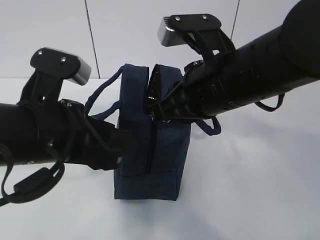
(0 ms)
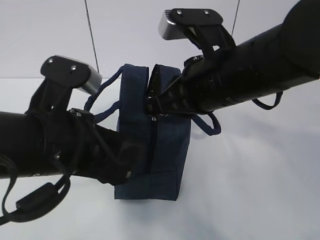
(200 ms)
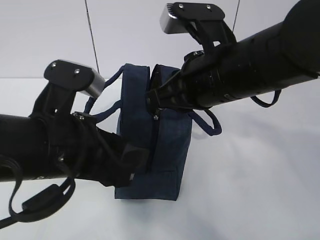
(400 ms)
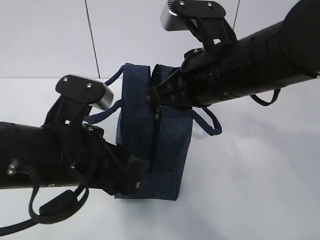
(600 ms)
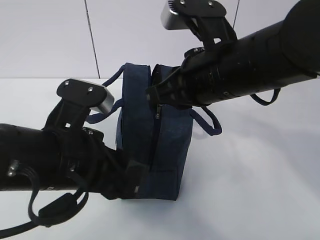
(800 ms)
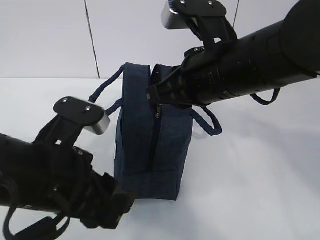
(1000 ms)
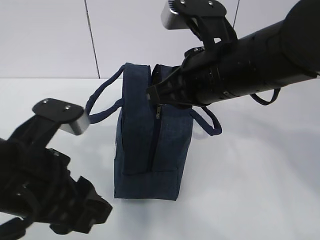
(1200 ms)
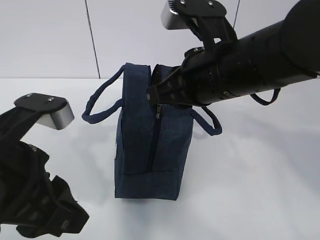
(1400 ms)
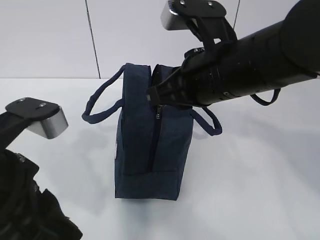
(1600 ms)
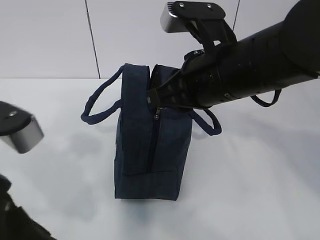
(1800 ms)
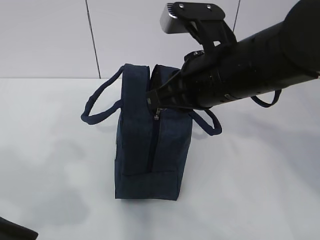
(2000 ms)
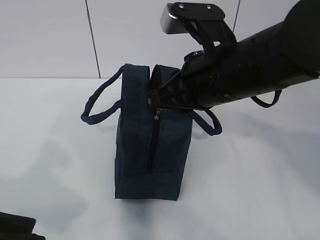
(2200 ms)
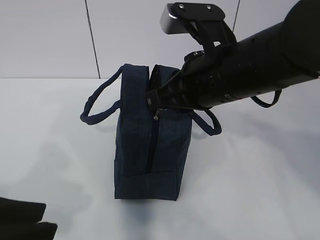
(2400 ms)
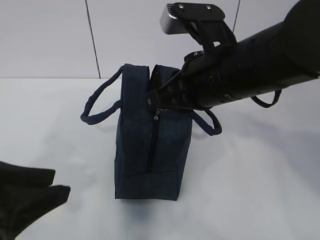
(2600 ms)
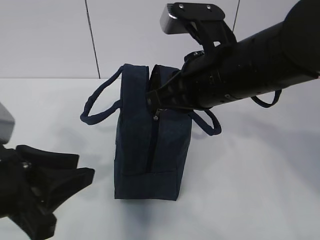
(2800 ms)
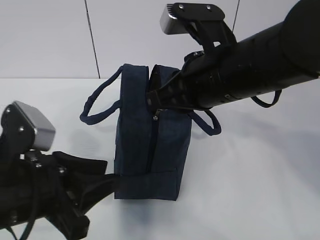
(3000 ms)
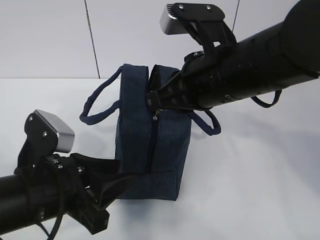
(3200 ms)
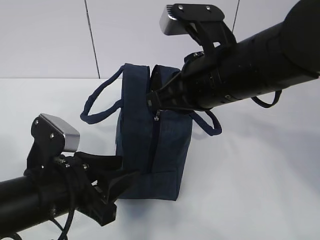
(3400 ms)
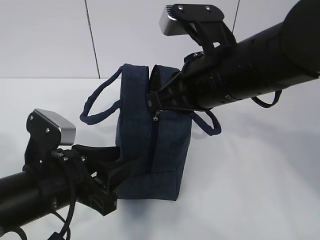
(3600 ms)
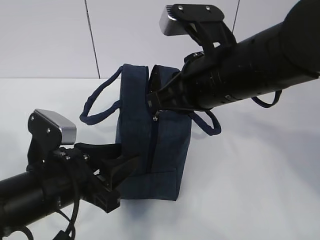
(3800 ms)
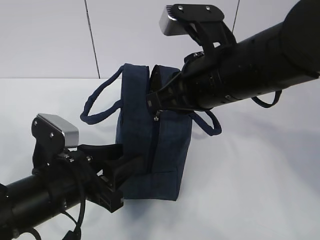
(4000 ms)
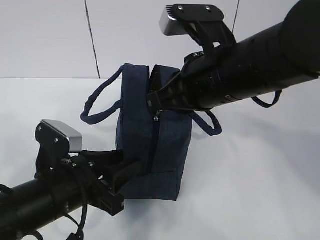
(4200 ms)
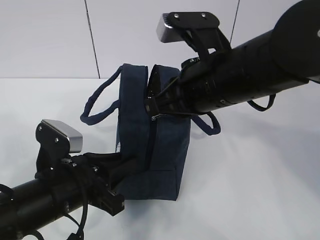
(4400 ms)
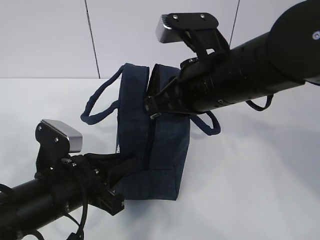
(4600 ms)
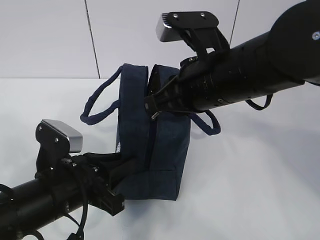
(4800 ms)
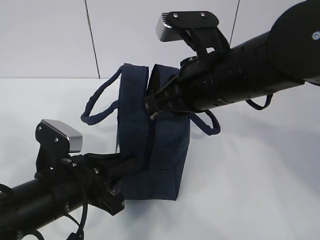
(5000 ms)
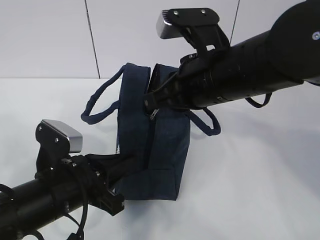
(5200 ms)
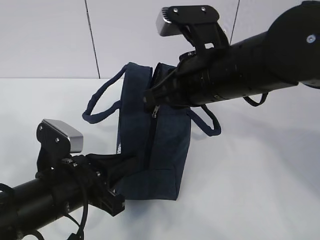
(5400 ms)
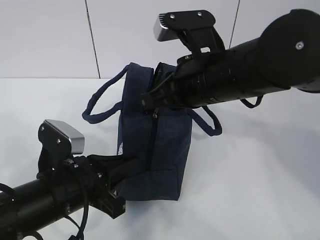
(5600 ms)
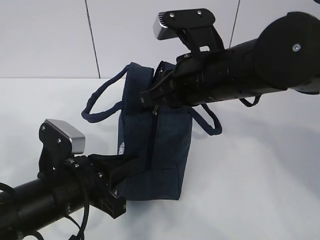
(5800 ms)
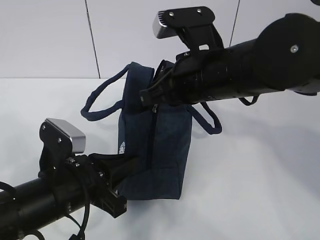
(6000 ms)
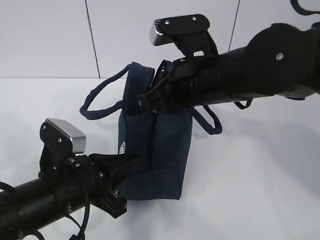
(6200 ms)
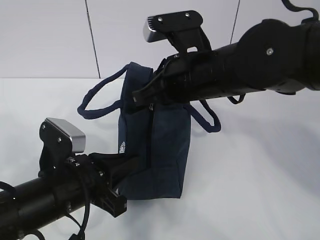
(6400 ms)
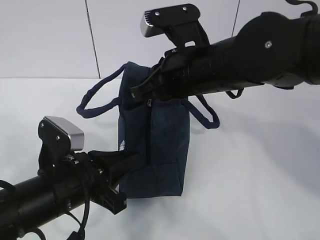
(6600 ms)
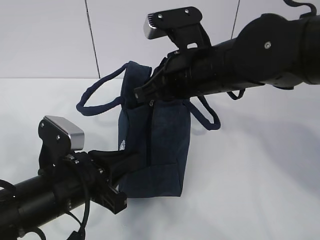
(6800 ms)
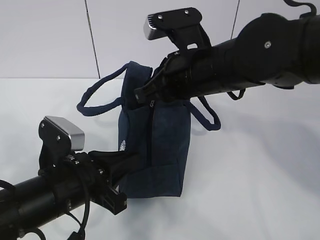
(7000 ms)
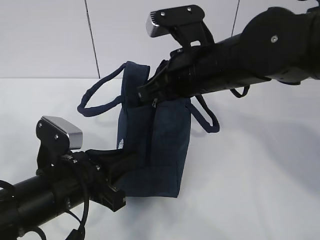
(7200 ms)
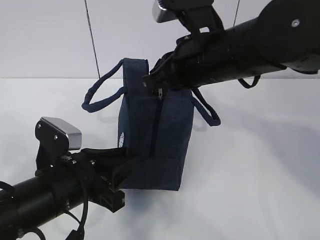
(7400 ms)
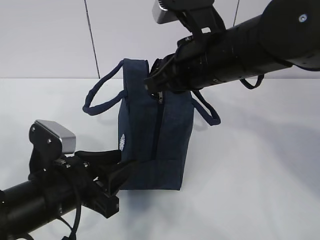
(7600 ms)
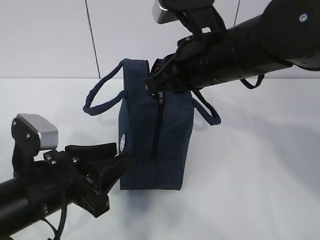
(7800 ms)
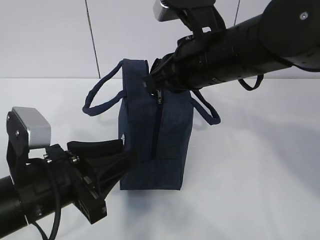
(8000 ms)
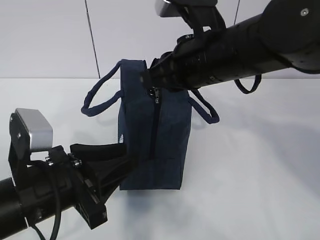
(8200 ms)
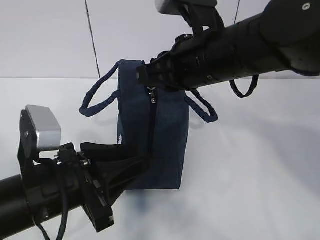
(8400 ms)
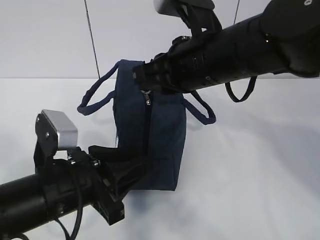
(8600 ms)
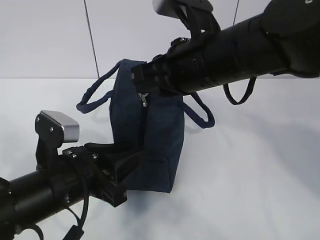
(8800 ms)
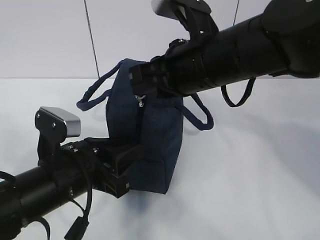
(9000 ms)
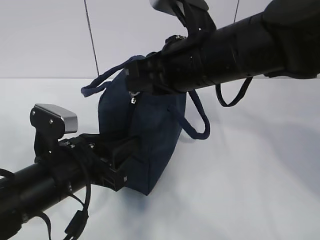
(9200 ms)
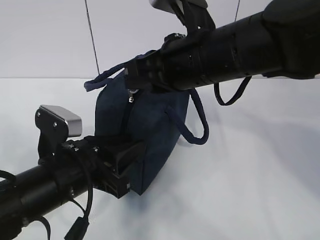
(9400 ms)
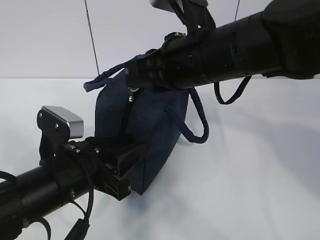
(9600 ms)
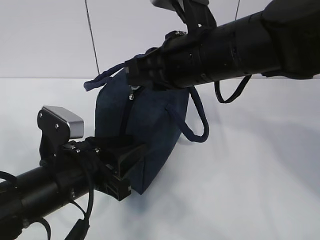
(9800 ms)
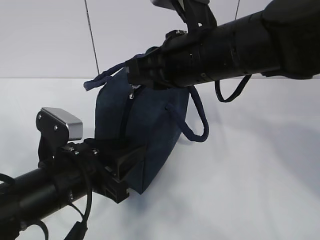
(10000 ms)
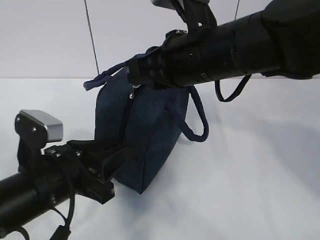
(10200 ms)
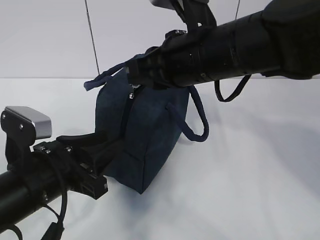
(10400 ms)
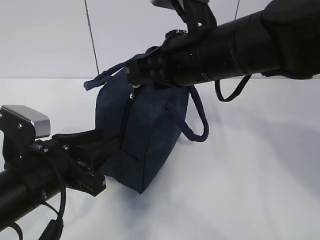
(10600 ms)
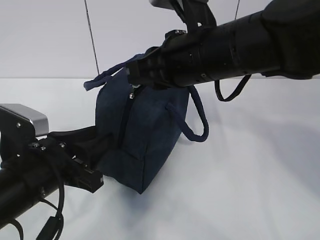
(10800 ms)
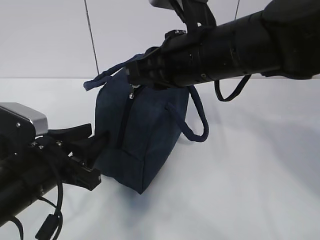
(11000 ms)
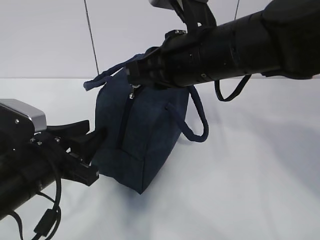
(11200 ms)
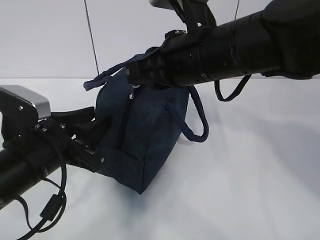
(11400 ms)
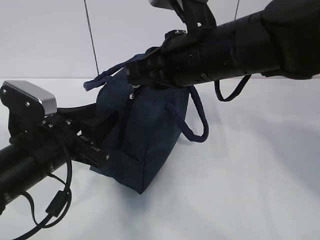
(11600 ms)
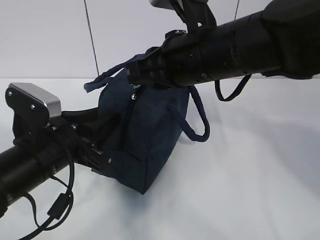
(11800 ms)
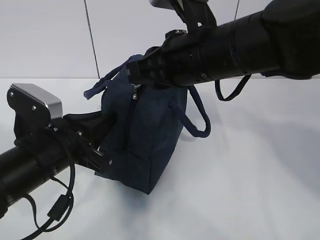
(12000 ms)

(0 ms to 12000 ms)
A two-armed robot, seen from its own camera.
Step, 1400 ms - 7200 ms: Pull the zipper with your right hand.
Step, 7600 ms - 9000 ms: Grab the lunch bag with your left hand.
0 ms - 1600 ms: The left gripper heads backward, covering about 5 cm, and closes.
1600 ms - 3000 ms: The left gripper shifts roughly 5 cm downward, and travels backward and back again, some 5 cm each way.
3000 ms - 4400 ms: The left gripper moves downward, about 5 cm.
4400 ms - 6000 ms: The left gripper closes its fingers.
6000 ms - 7600 ms: The left gripper opens.
7600 ms - 9000 ms: There are only small adjustments of the grippers.
9000 ms - 10400 ms: There are only small adjustments of the grippers.
10400 ms - 12000 ms: The left gripper closes its fingers.

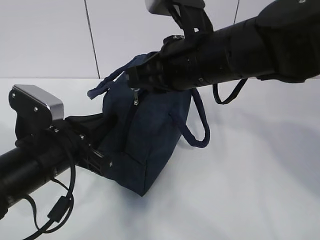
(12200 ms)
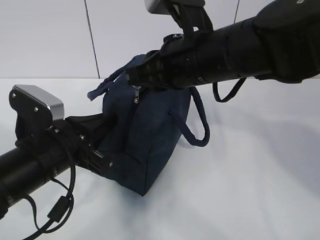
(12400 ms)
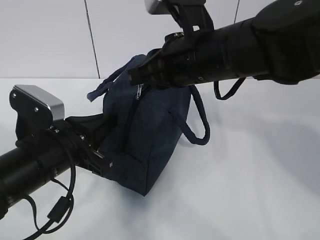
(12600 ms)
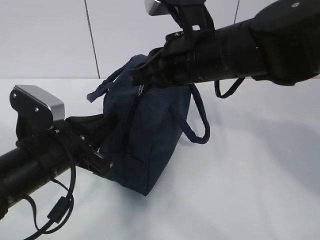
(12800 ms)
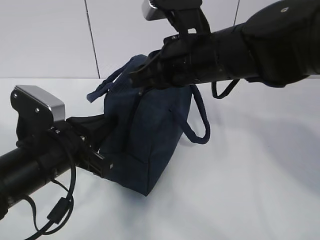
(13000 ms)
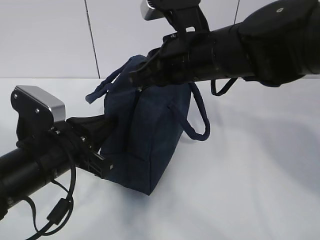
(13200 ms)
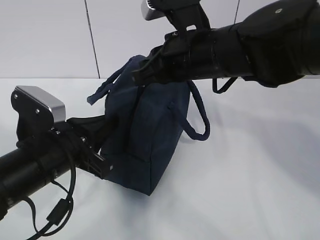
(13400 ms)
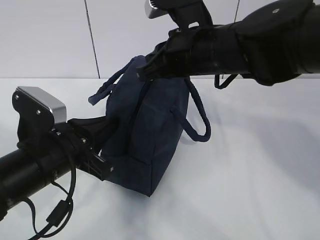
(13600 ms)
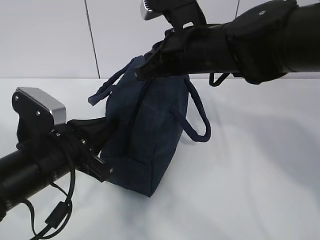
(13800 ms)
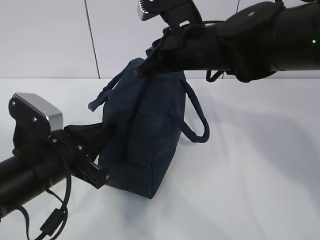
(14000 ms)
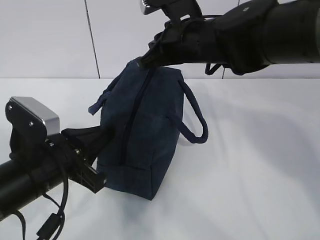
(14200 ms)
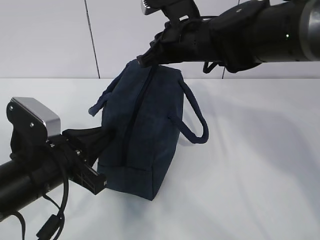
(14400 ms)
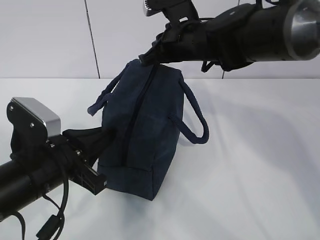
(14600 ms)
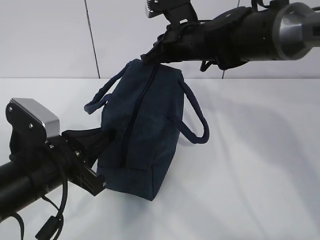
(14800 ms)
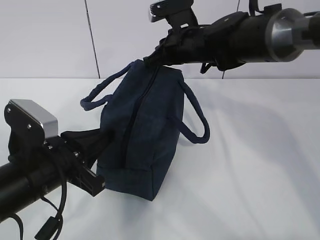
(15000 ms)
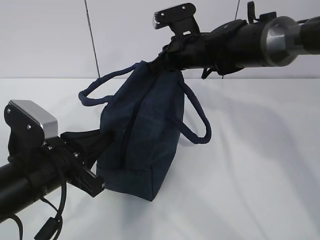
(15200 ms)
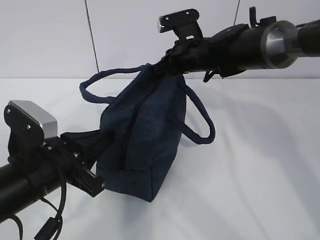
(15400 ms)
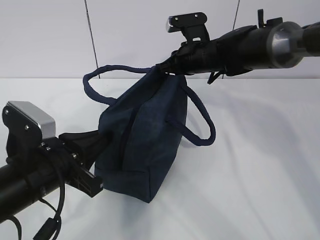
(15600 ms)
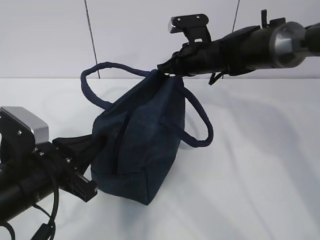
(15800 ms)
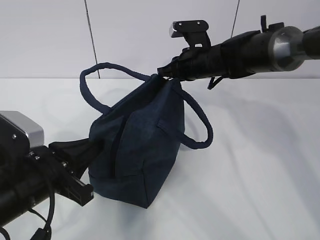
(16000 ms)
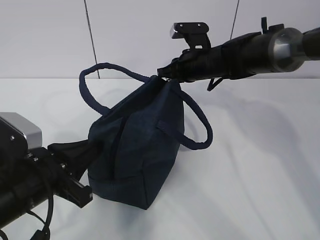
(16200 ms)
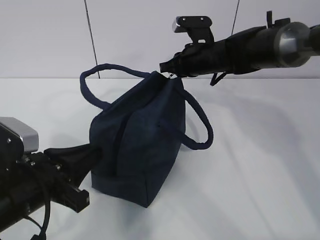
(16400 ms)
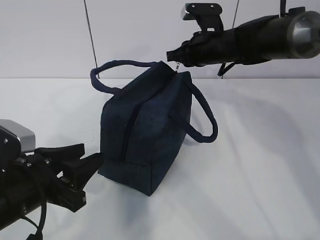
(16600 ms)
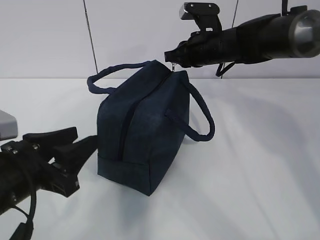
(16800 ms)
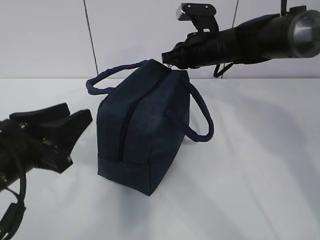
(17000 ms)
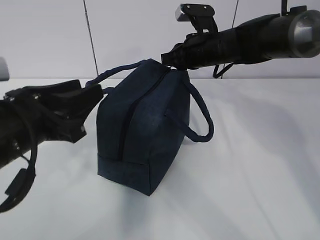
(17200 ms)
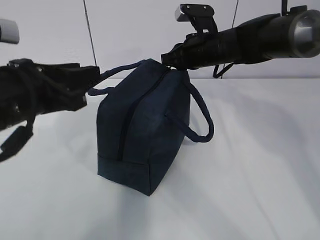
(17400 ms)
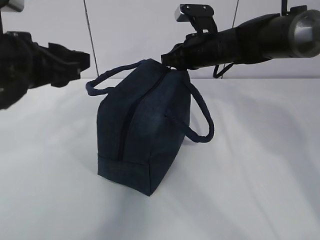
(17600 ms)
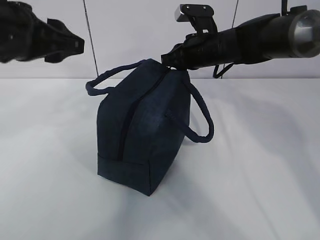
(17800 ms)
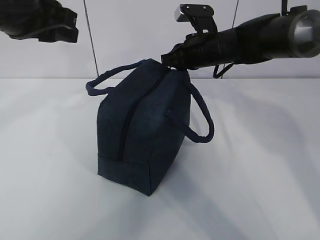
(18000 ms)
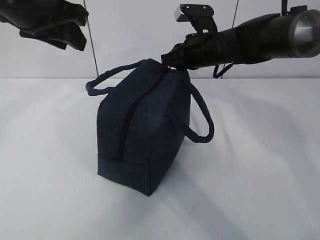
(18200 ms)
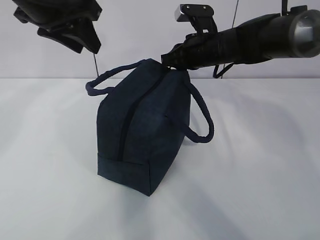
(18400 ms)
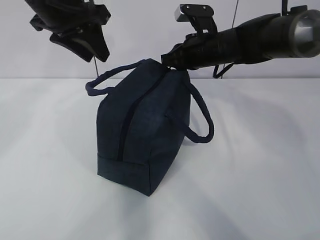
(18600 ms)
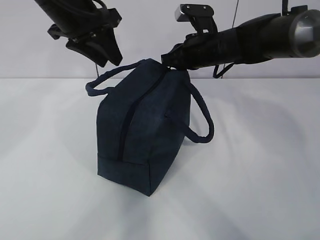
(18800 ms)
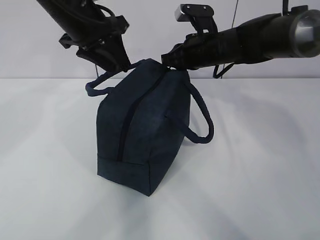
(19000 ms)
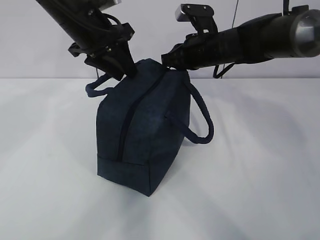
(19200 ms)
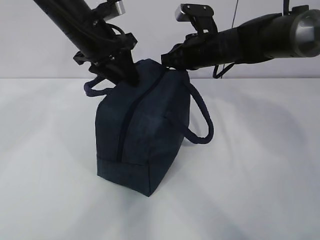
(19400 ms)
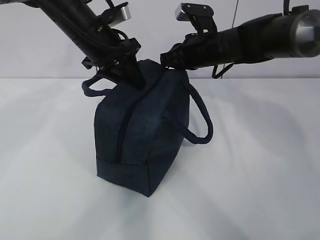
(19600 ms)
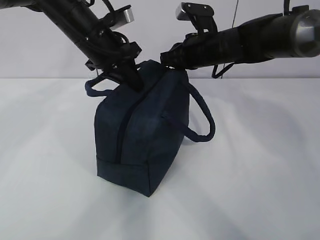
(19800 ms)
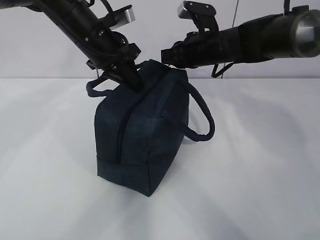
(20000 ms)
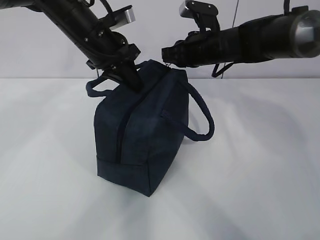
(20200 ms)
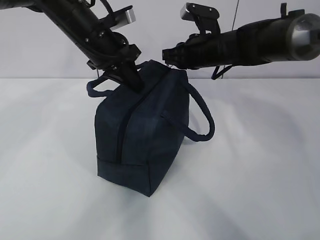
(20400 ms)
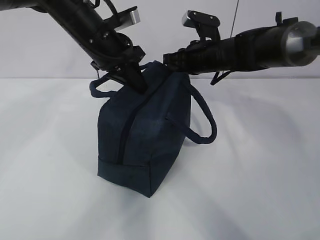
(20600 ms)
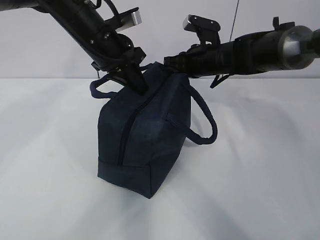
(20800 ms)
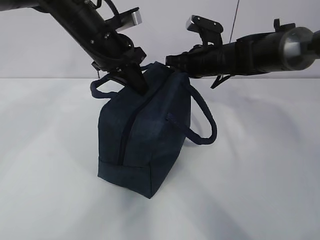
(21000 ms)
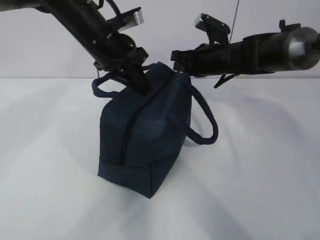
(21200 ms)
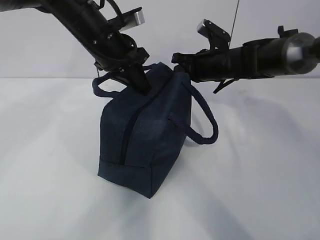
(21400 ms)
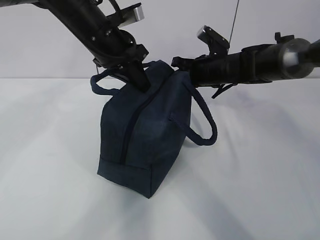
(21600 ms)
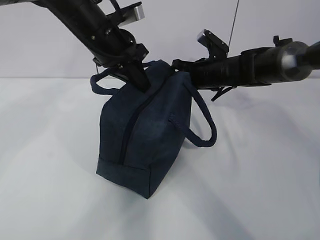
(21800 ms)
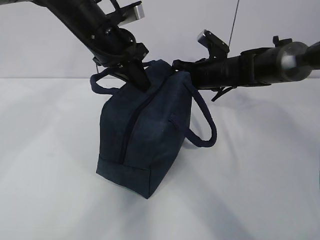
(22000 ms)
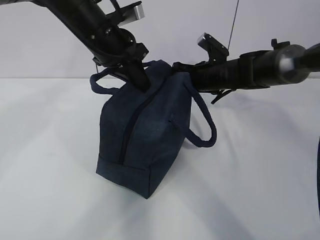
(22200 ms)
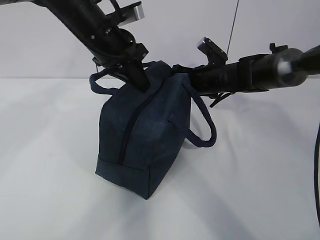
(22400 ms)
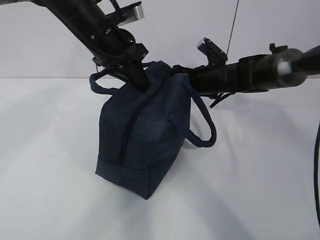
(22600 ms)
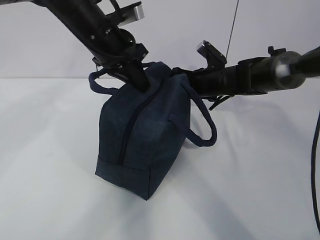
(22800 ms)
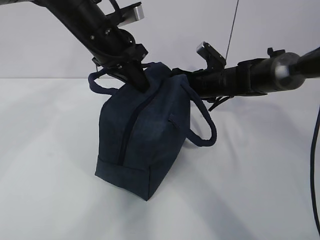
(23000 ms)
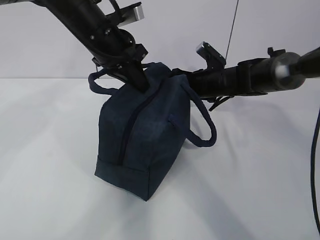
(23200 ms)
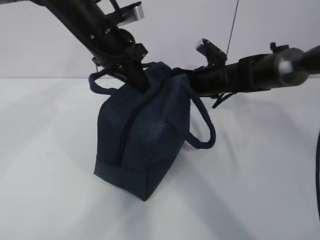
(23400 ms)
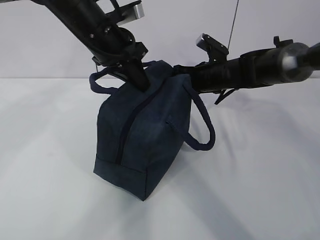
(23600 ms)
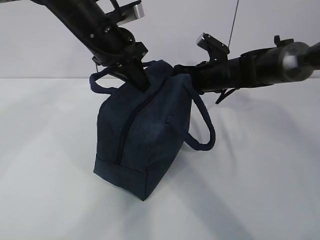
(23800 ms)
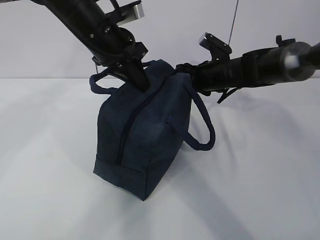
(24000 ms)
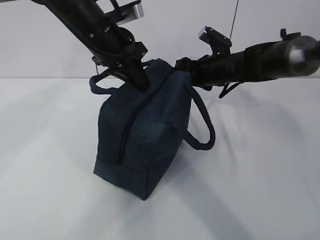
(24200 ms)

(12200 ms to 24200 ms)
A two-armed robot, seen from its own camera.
12200 ms - 13800 ms: The right gripper shifts by about 5 cm.
13800 ms - 15200 ms: The right gripper goes about 15 cm forward and downward.
15200 ms - 16600 ms: The left gripper opens its fingers.
16600 ms - 18200 ms: The left gripper travels upward and forward by roughly 25 cm.
18200 ms - 19800 ms: The left gripper moves downward, forward and to the right, about 15 cm, and closes its fingers.
21200 ms - 22600 ms: The right gripper shifts by approximately 5 cm.
22600 ms - 24200 ms: The right gripper opens.
